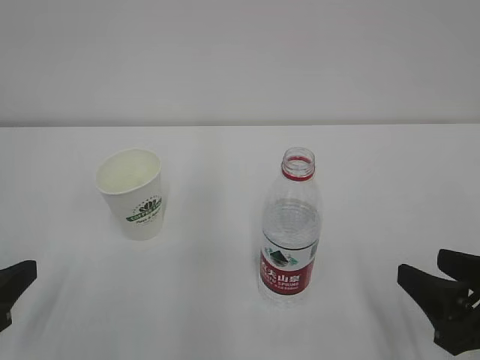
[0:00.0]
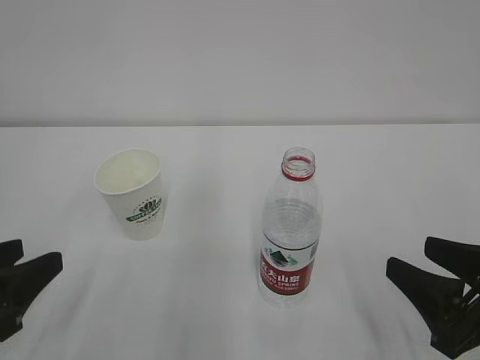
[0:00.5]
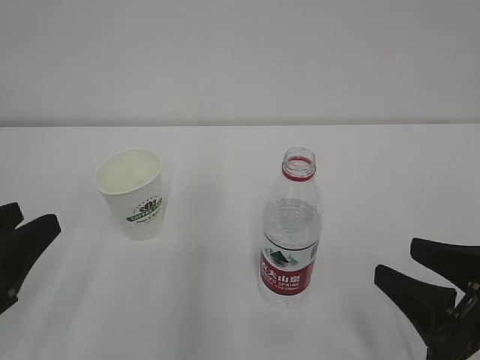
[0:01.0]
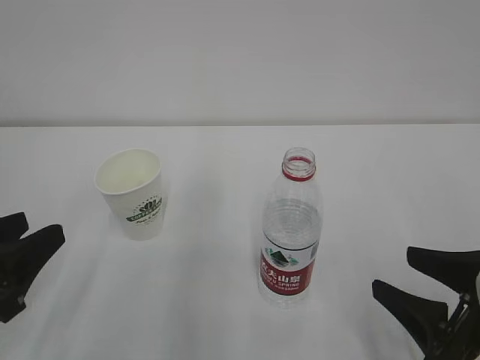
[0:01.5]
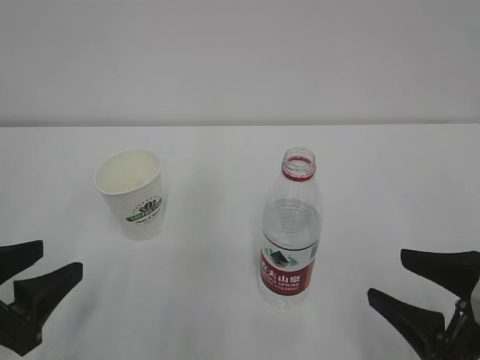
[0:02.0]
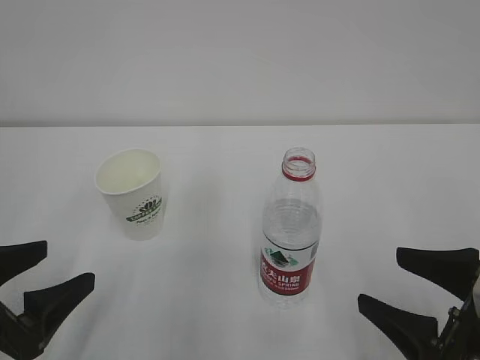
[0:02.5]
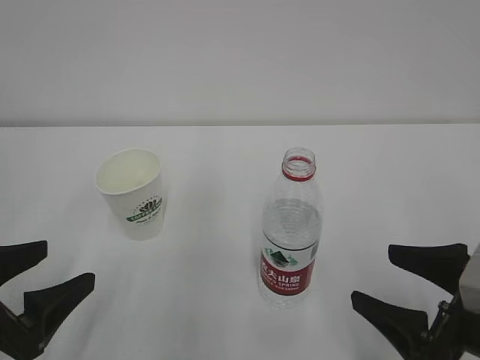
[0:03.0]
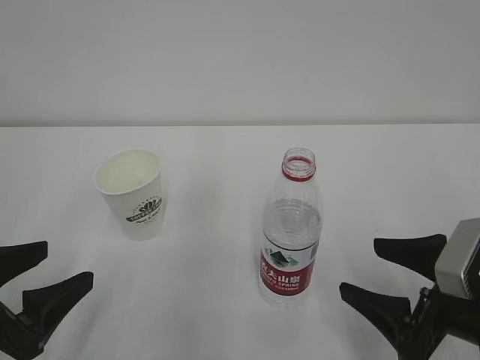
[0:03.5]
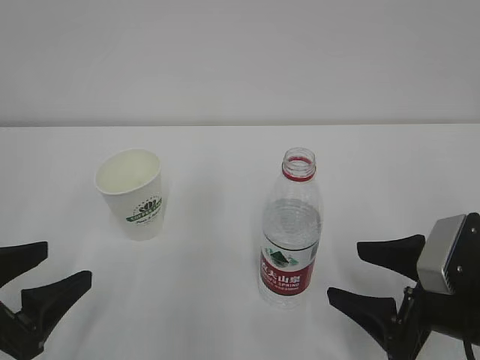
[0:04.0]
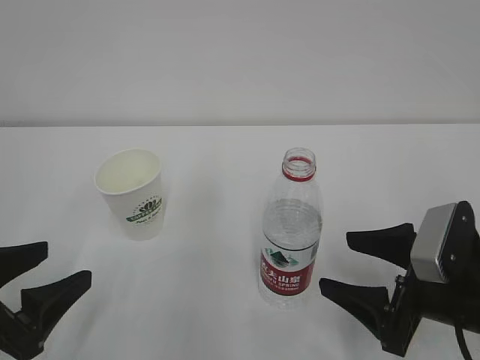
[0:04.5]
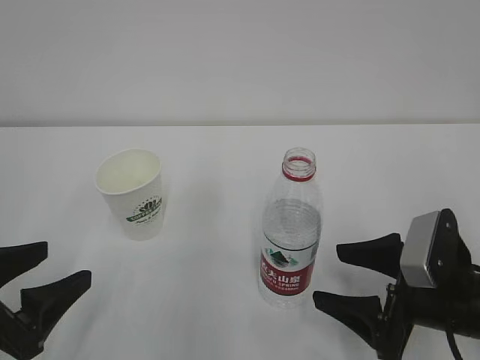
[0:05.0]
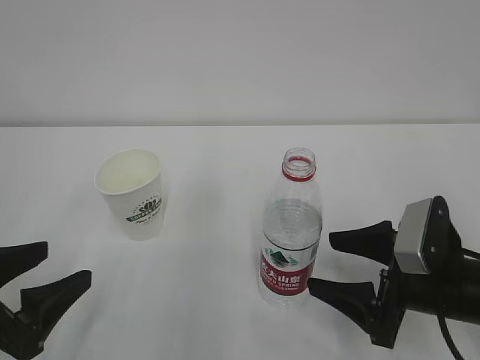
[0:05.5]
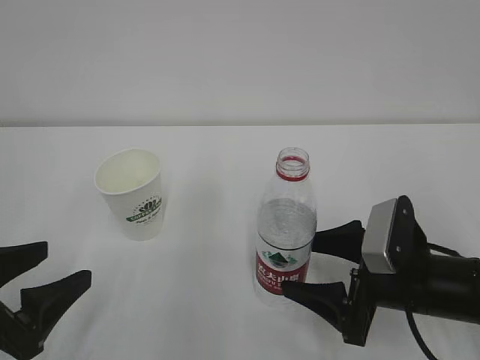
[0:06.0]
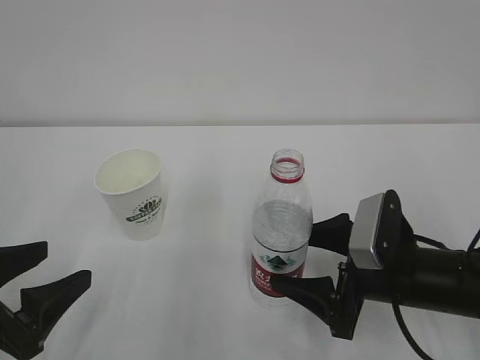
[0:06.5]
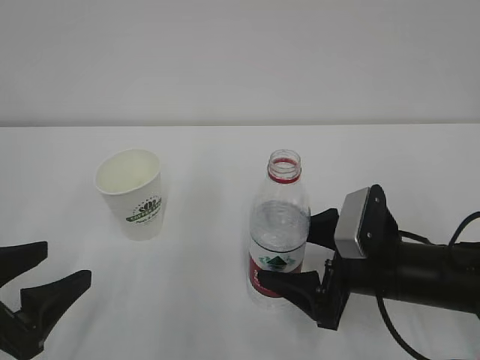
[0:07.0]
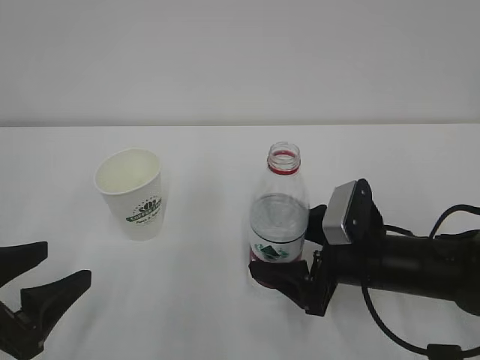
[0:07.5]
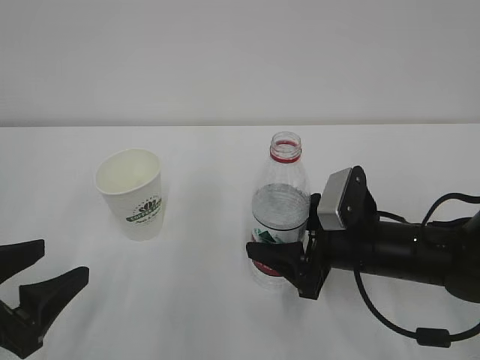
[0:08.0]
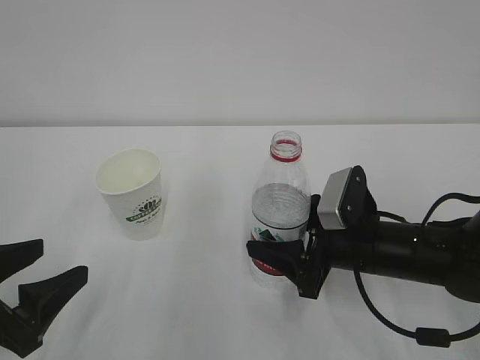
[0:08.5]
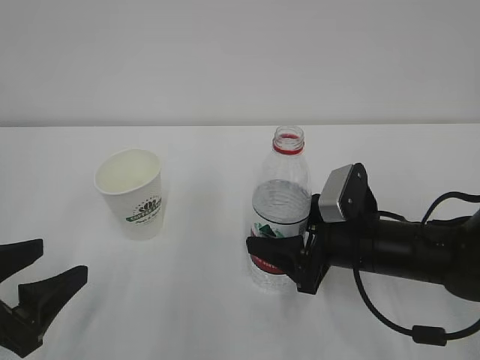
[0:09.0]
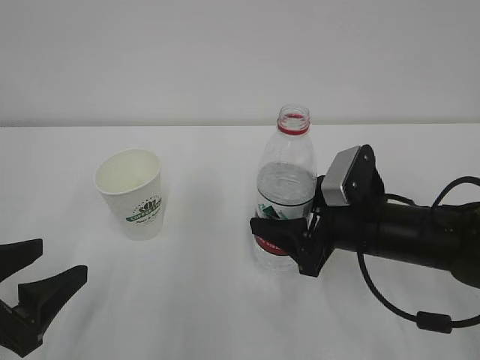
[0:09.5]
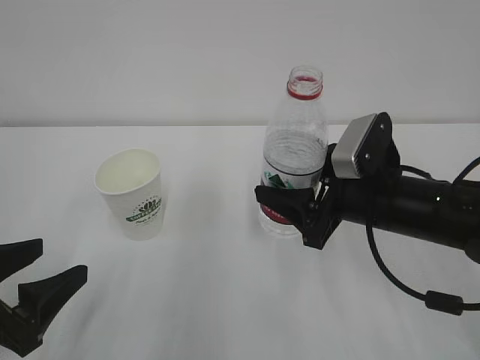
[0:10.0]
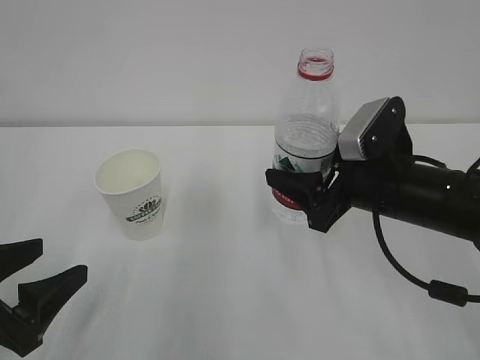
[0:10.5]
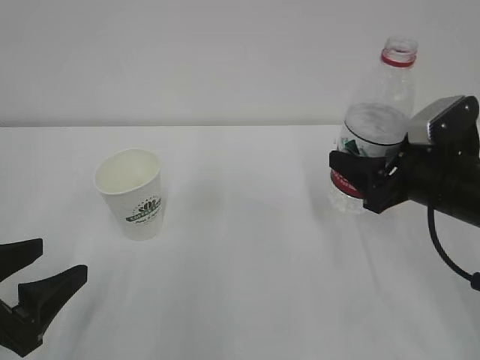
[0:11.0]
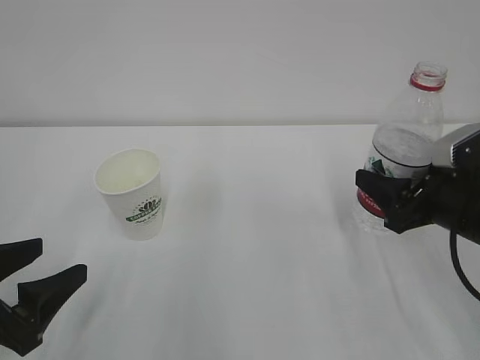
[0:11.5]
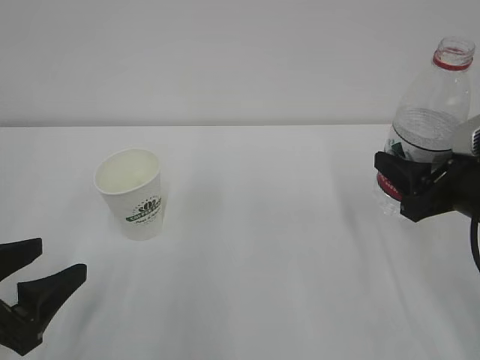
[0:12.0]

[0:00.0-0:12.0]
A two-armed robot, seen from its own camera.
0:02.0 to 0:04.0: The right gripper ends up roughly 5 cm from where it was, and opens.
0:04.0 to 0:06.0: The right gripper changes place by about 5 cm.
0:06.0 to 0:08.0: The right gripper shifts by about 5 cm.
0:08.0 to 0:10.0: The right gripper goes approximately 5 cm upward.
0:10.0 to 0:12.0: The right gripper travels to the right by some 10 cm.

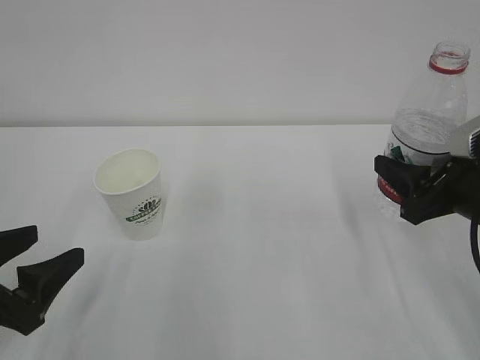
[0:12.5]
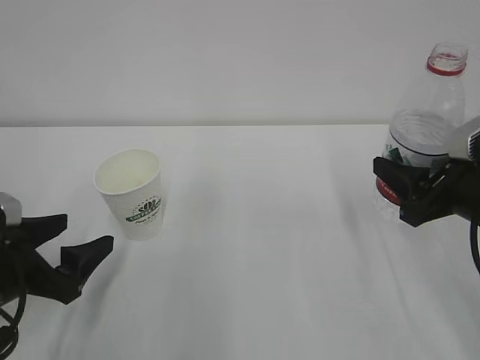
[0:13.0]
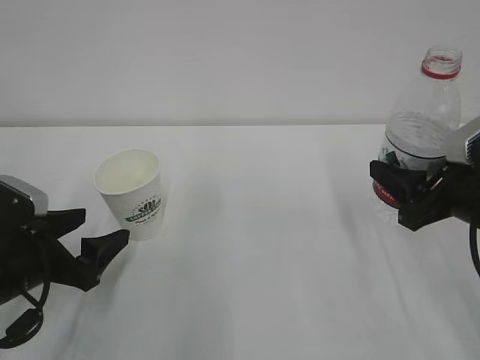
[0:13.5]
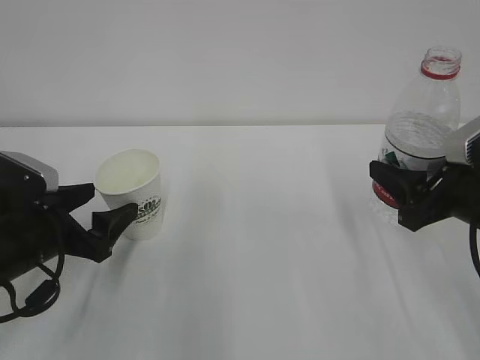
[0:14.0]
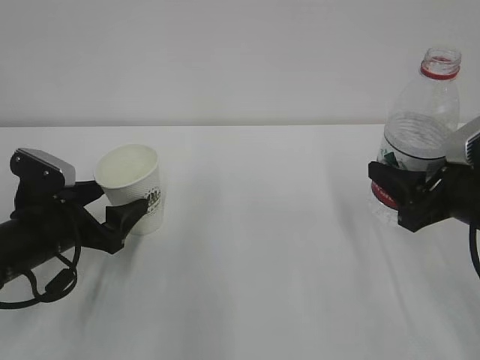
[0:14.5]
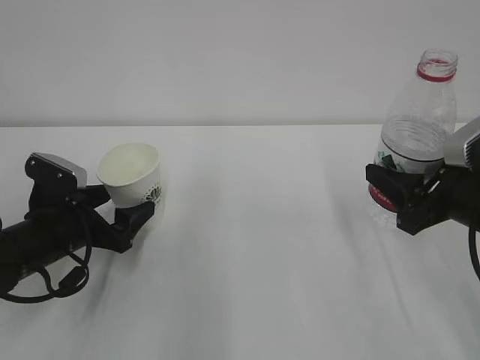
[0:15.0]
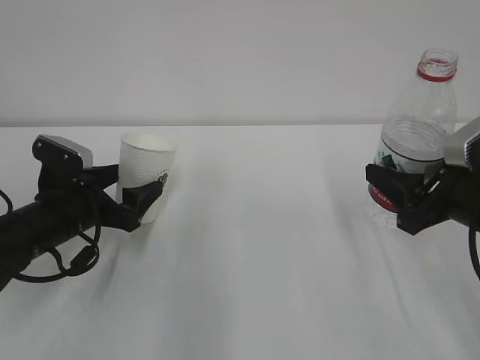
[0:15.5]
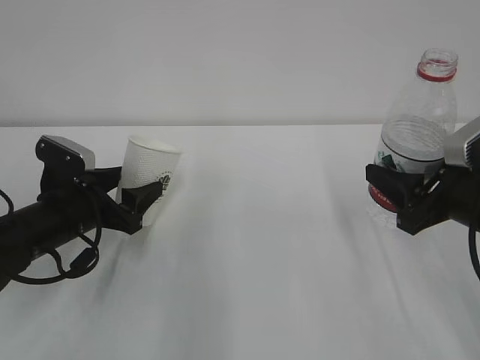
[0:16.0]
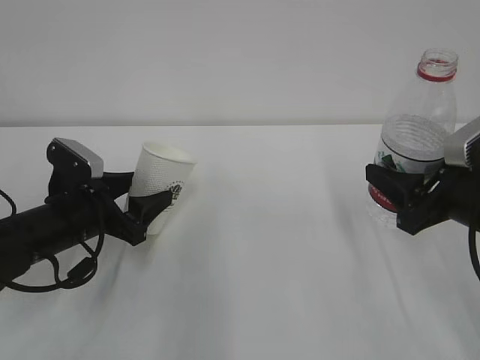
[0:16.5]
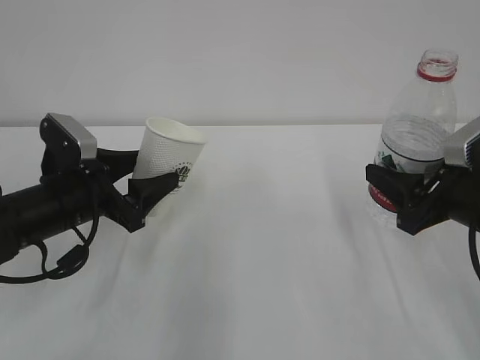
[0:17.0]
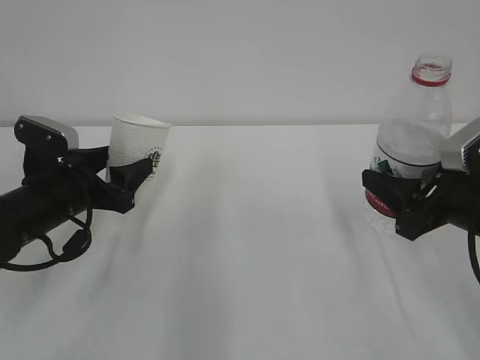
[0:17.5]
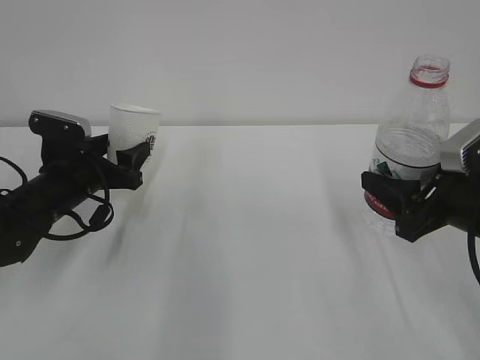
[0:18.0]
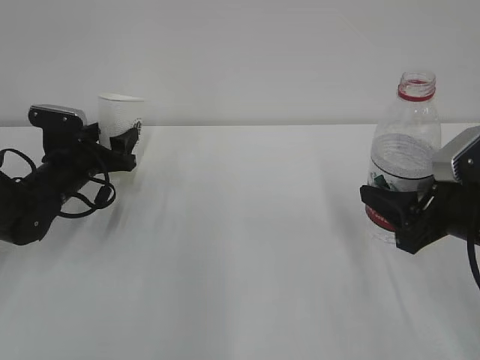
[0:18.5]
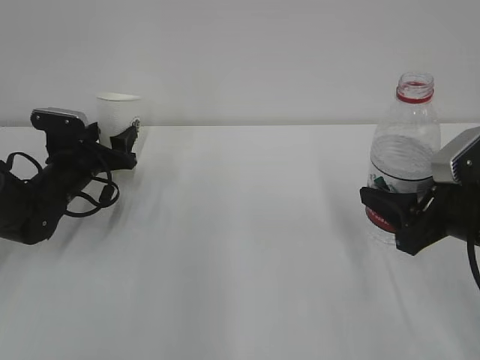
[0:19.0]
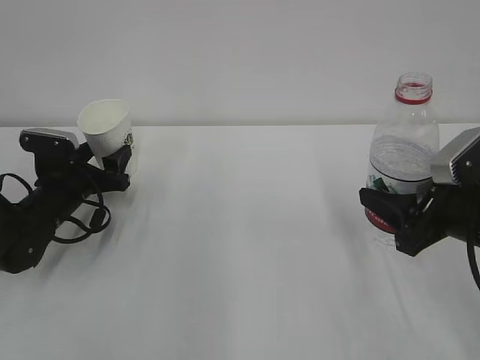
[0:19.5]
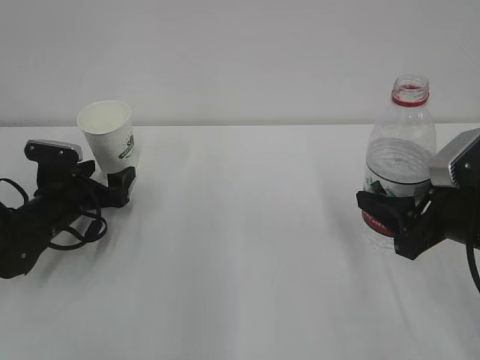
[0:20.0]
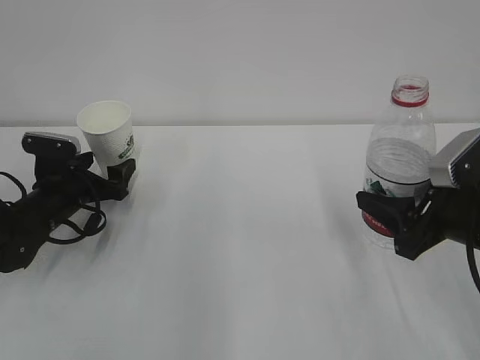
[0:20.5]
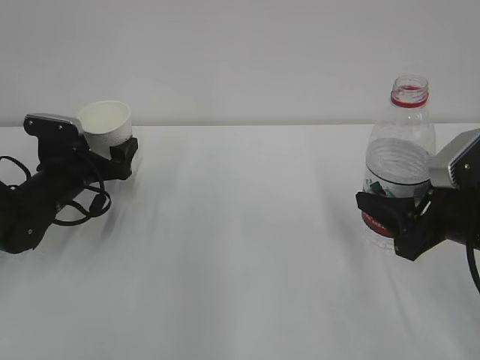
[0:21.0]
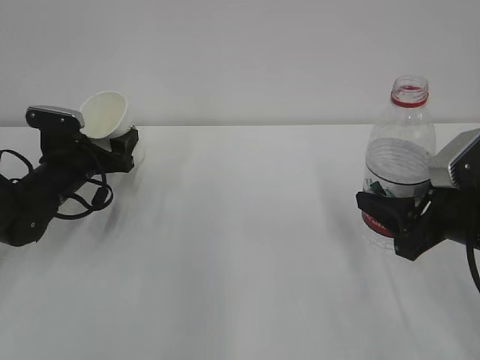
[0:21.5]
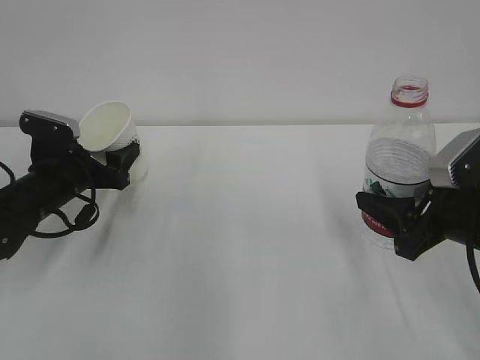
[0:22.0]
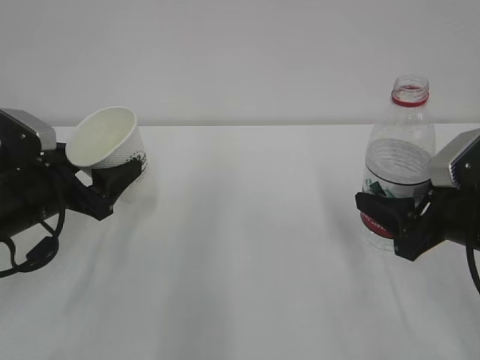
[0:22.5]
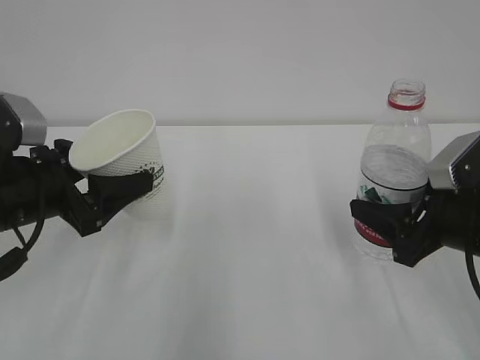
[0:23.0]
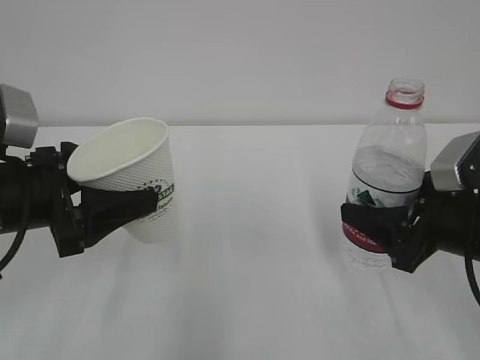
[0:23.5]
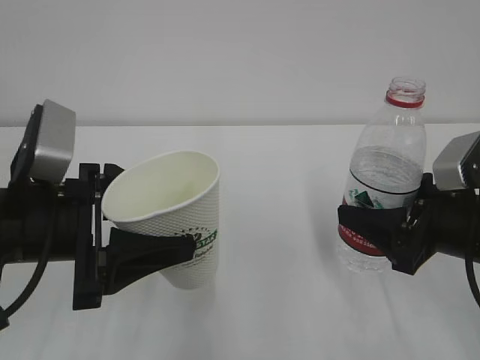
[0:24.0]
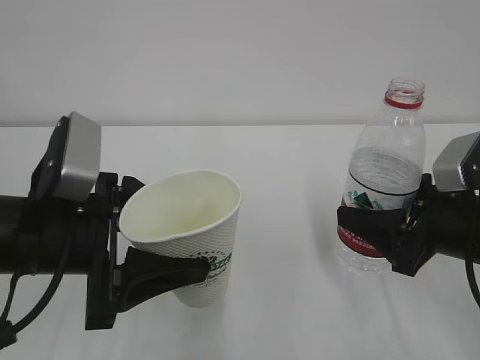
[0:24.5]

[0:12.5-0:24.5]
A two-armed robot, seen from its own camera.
0:12.5 to 0:14.5: The left gripper is displaced forward by approximately 10 cm.
0:14.5 to 0:16.5: The left gripper closes its fingers.
0:16.5 to 0:18.5: The left gripper heads forward, covering some 10 cm.
0:18.5 to 0:20.5: The left gripper opens.
0:20.5 to 0:22.5: The left gripper shifts approximately 10 cm backward and upward, and closes up.
0:22.5 to 0:24.5: The left gripper is displaced backward, to the right and upward by about 15 cm.

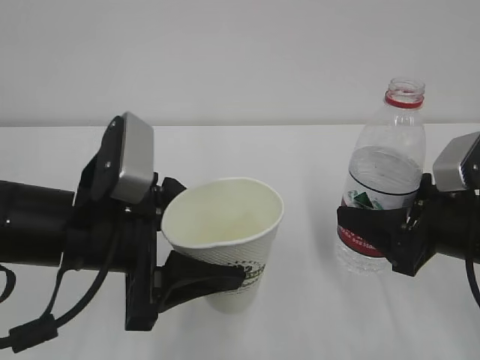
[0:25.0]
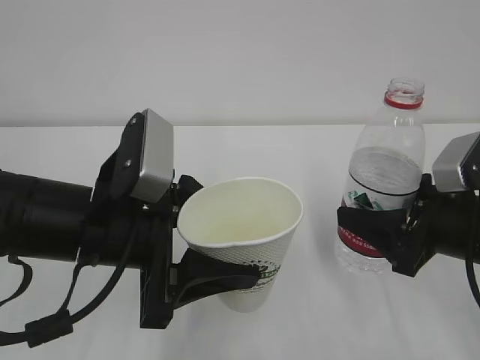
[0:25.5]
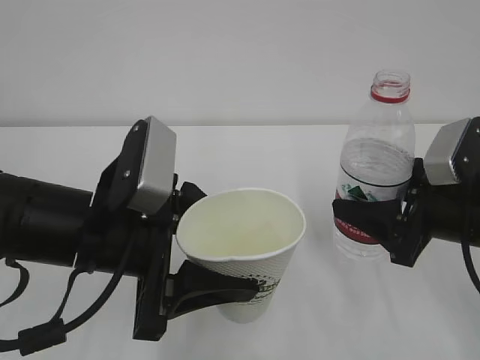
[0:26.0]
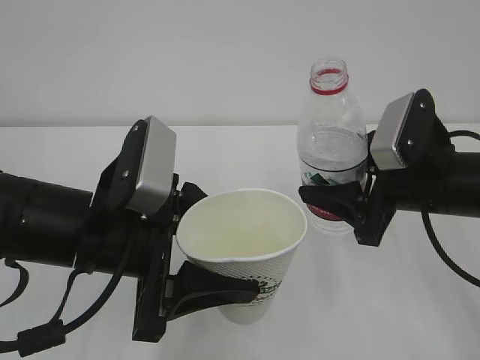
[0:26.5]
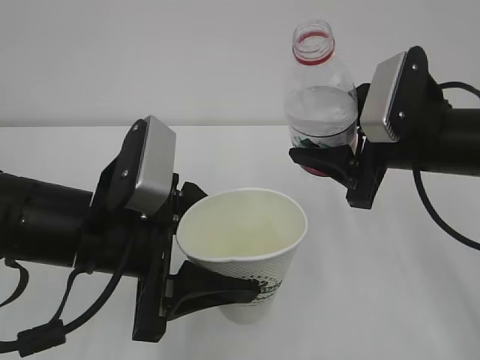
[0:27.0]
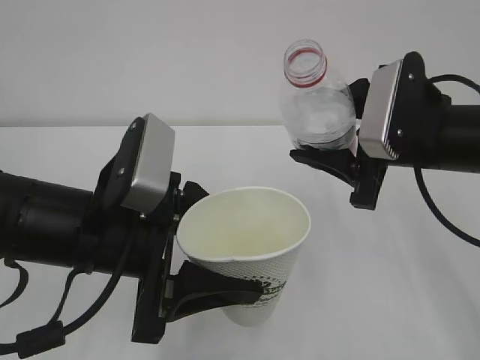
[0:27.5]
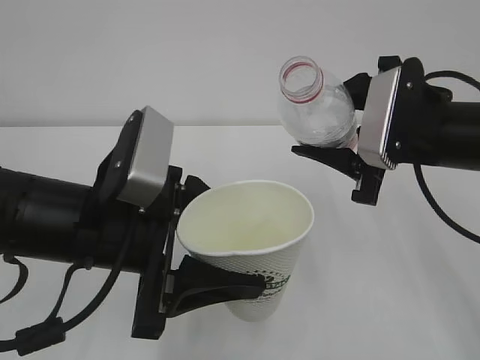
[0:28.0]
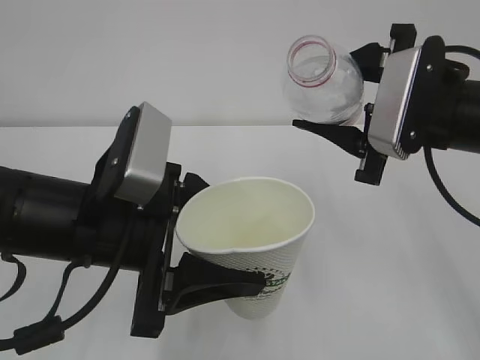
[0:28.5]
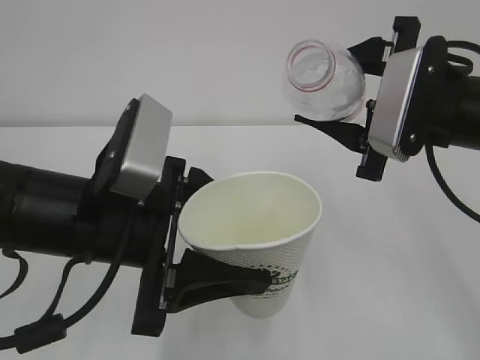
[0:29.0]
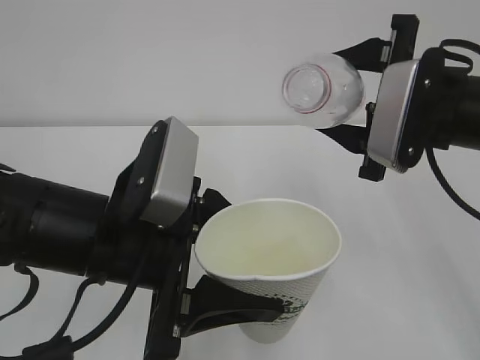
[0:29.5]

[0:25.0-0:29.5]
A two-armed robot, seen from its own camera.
0:25.0 to 0:27.0: The right gripper travels upward and forward by roughly 10 cm.
